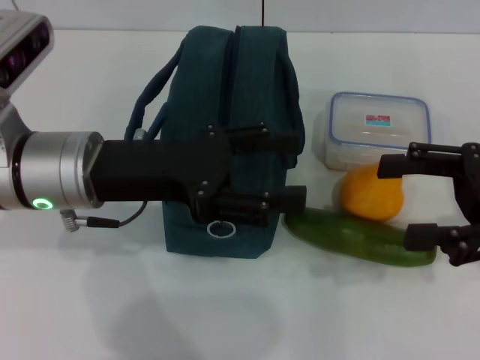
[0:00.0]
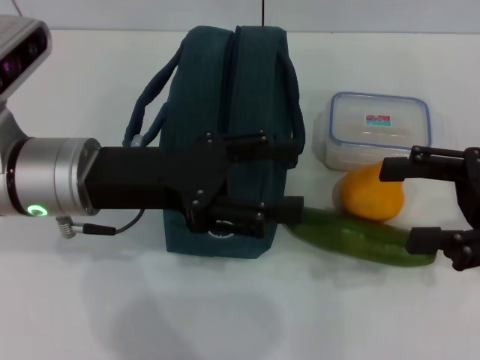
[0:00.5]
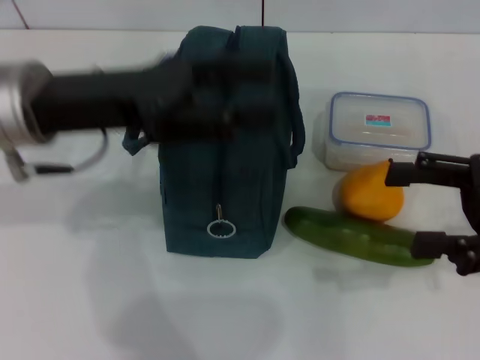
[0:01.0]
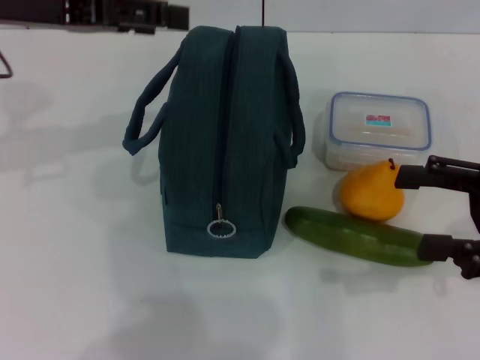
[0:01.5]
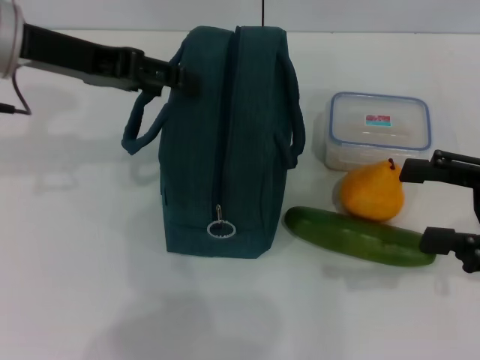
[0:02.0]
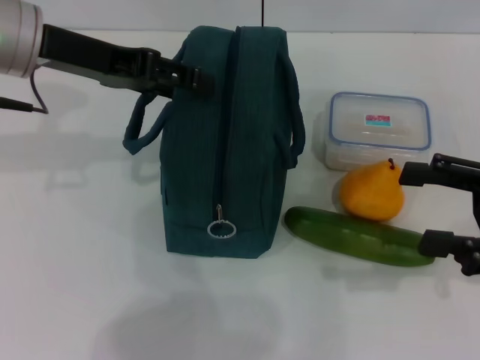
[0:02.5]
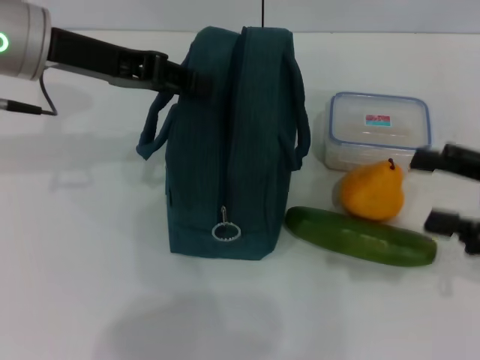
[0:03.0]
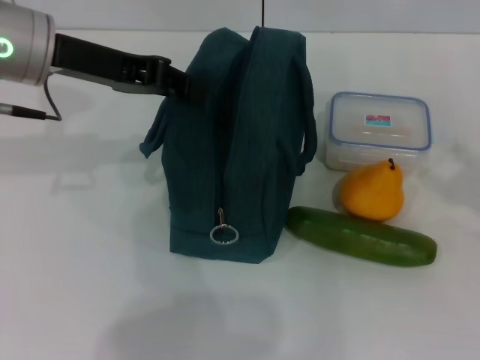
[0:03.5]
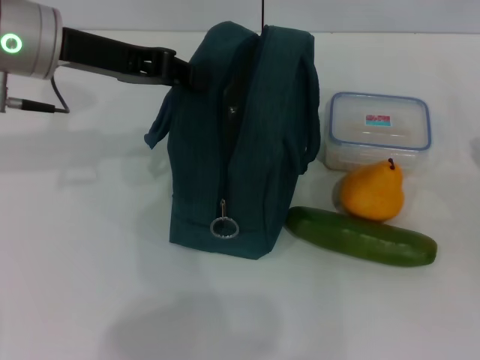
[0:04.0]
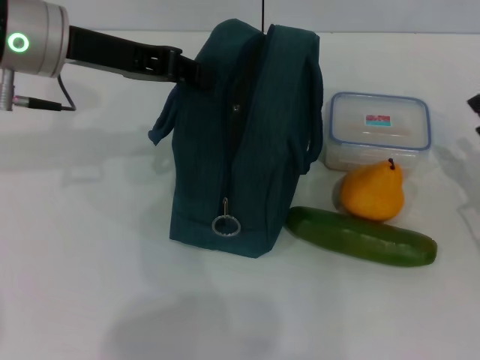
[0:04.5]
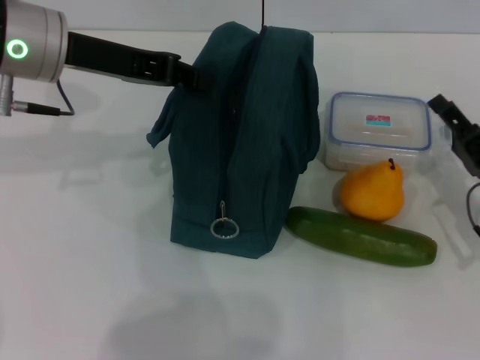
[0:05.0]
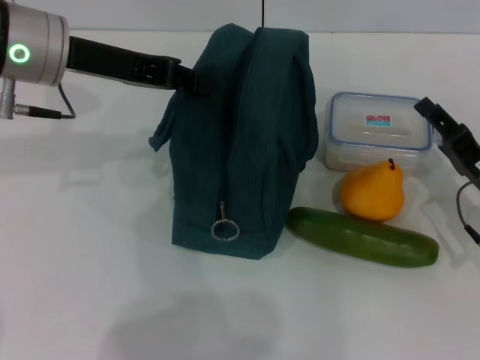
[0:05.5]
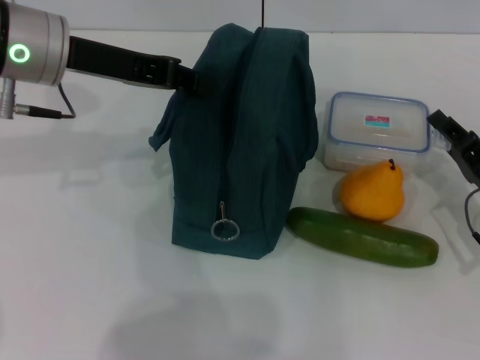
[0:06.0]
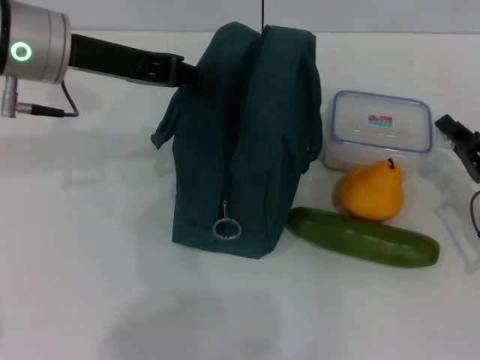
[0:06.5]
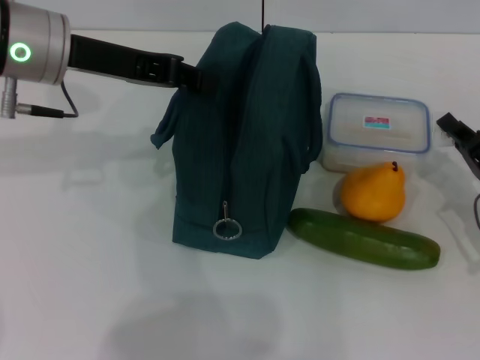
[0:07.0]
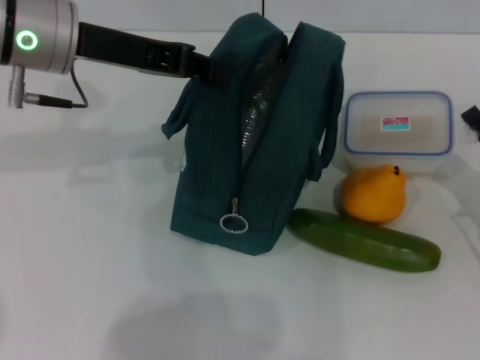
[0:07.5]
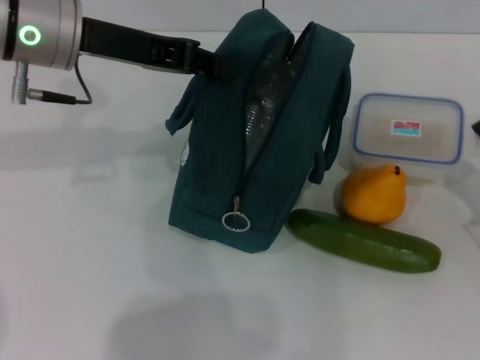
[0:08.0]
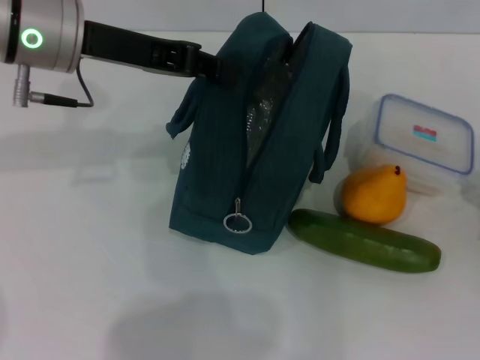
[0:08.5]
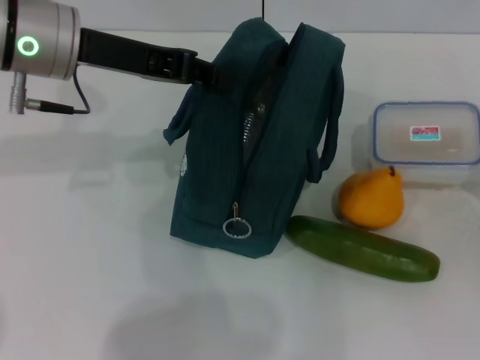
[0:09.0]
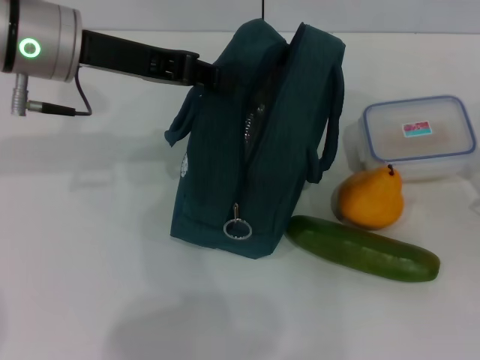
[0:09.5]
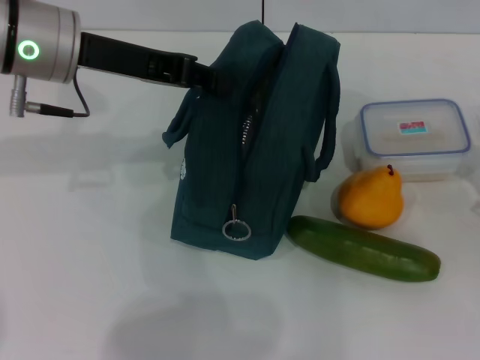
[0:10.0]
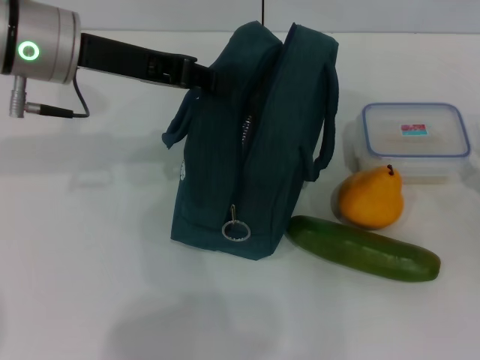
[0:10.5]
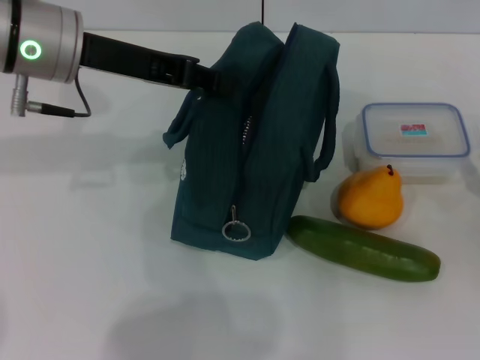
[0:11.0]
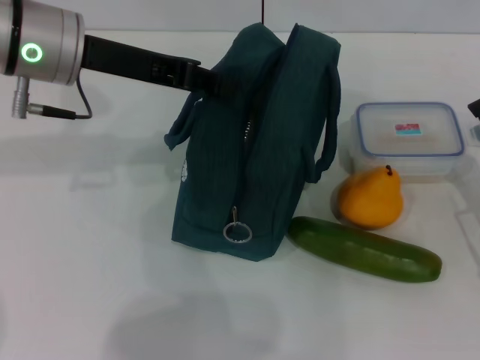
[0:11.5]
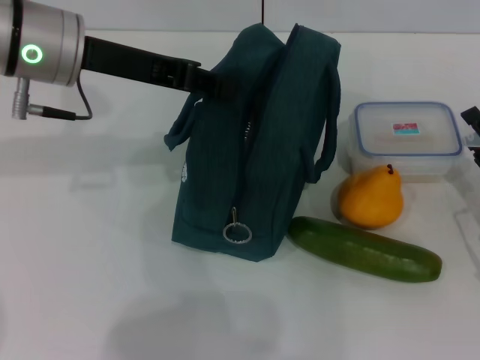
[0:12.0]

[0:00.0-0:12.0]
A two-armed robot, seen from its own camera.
Step, 0:00.0 to 0:03.0: Hold the lunch bag with your left hand.
0:00.0 to 0:02.0: The left gripper heads upward, forward and to the left, covering some 10 cm.
0:02.0 to 0:04.0: The left gripper closes up; the right gripper moves downward, approximately 10 cm.
0:04.0 to 0:06.0: The right gripper is displaced to the left by approximately 5 cm, and closes up.
0:06.0 to 0:08.0: The right gripper closes.
0:08.0 to 0:10.0: The grippers stay close to where they were, moving slightly.
0:10.0 to 0:12.0: The right gripper opens up.

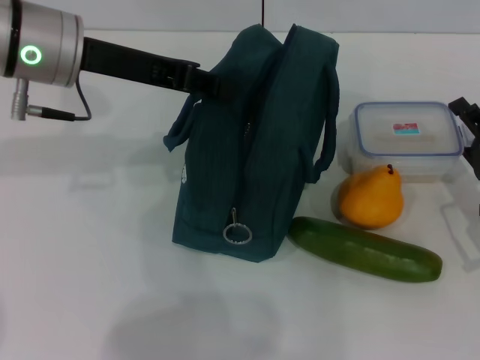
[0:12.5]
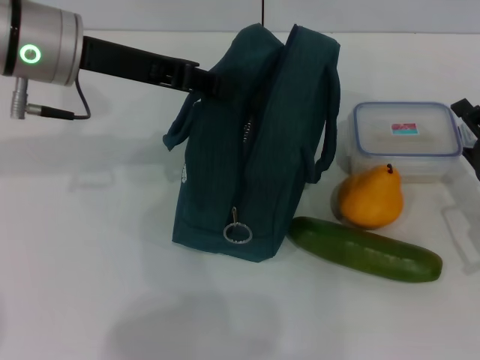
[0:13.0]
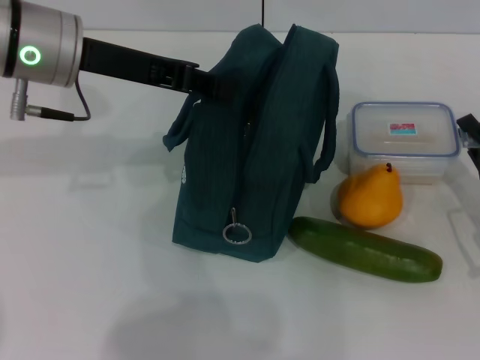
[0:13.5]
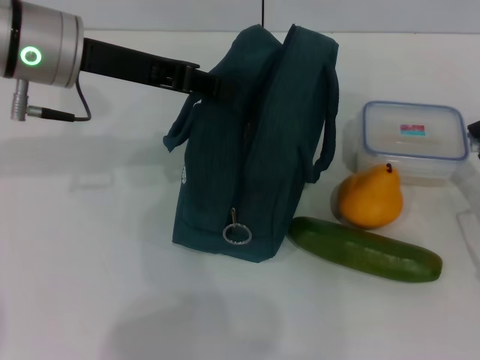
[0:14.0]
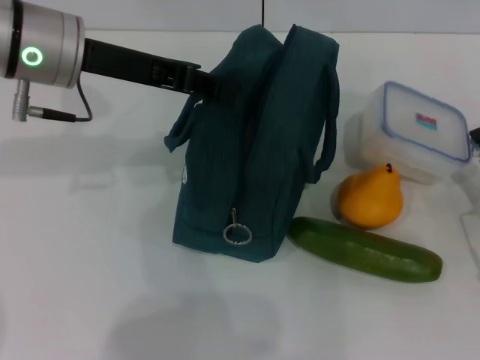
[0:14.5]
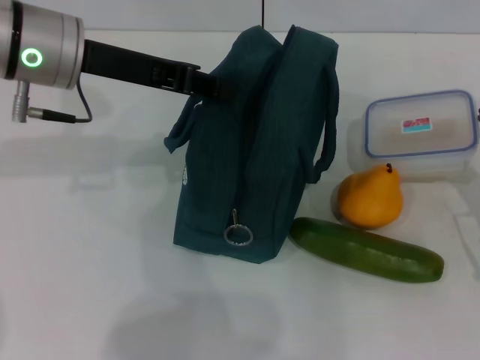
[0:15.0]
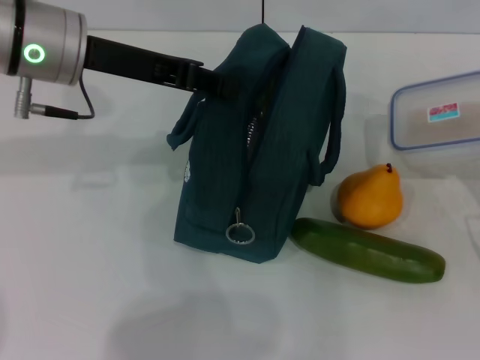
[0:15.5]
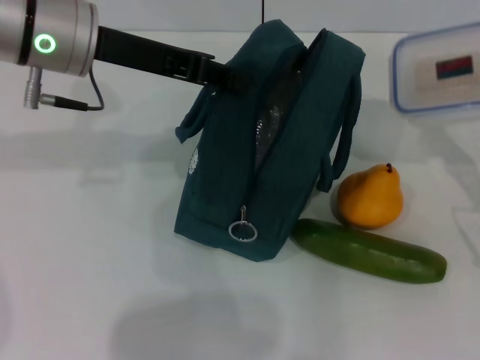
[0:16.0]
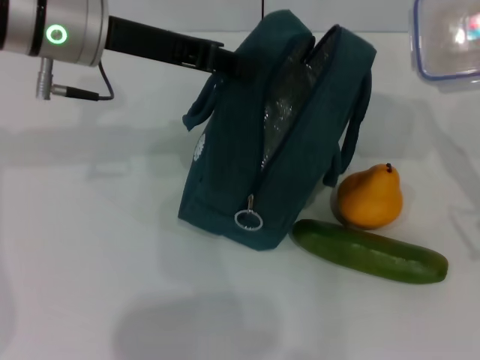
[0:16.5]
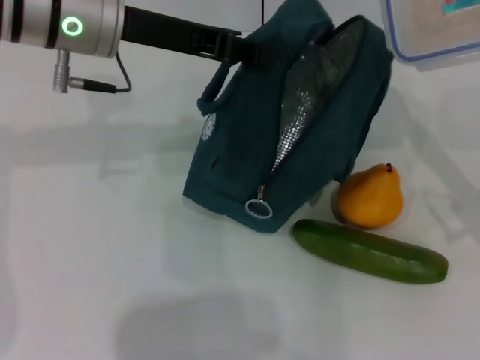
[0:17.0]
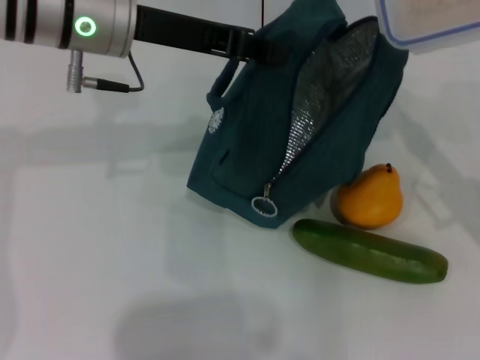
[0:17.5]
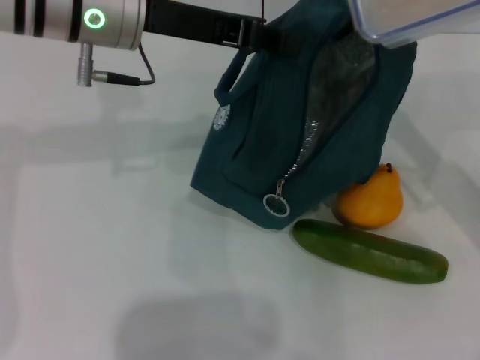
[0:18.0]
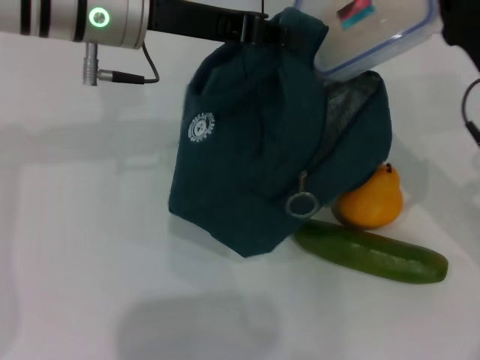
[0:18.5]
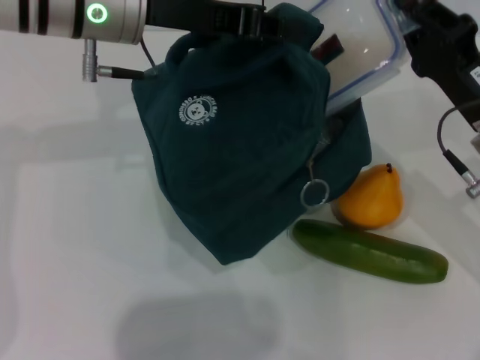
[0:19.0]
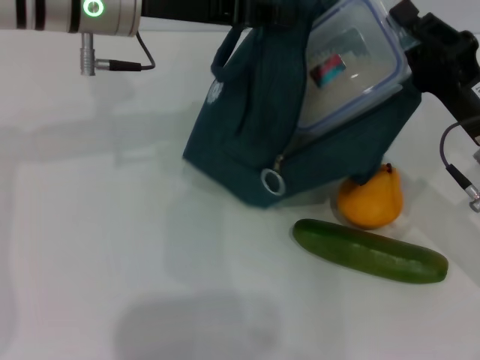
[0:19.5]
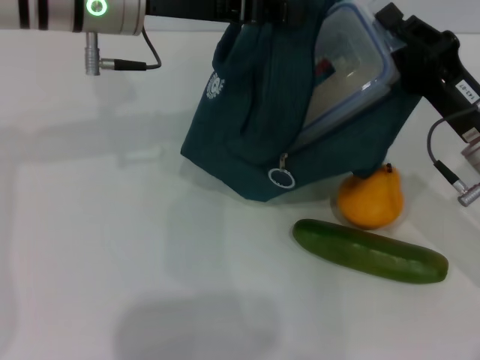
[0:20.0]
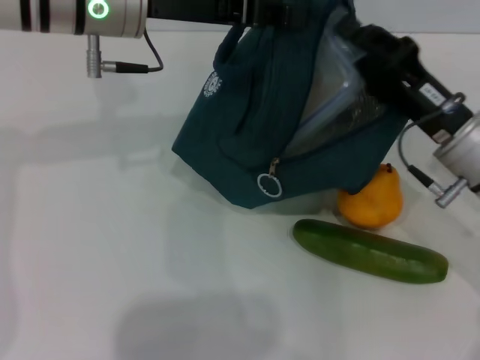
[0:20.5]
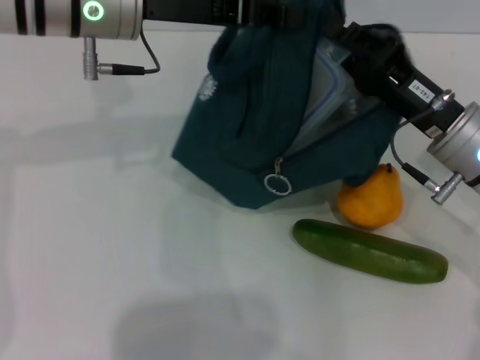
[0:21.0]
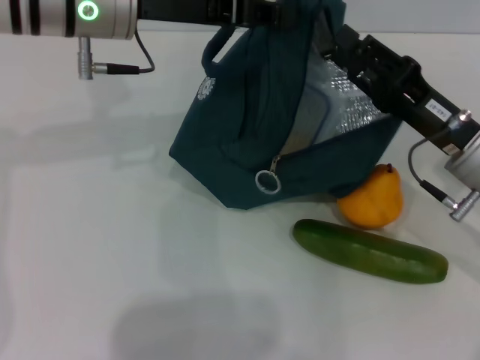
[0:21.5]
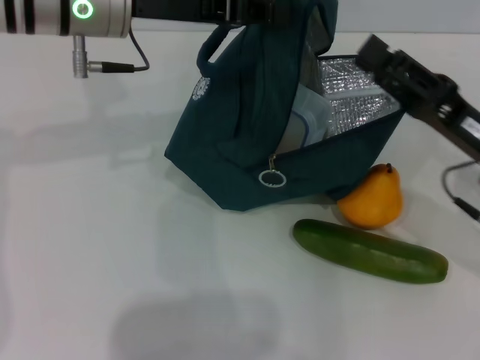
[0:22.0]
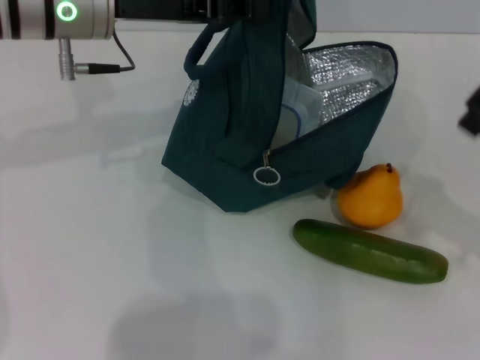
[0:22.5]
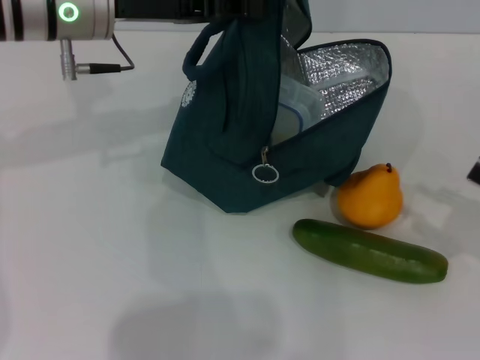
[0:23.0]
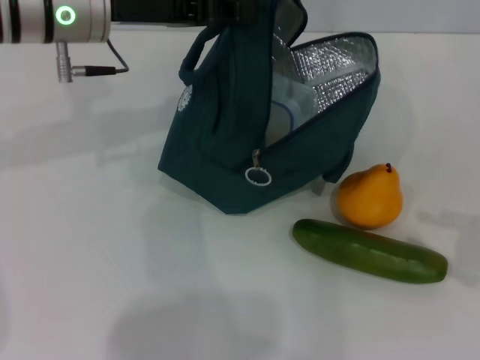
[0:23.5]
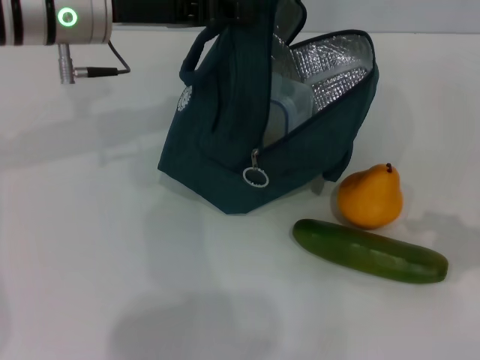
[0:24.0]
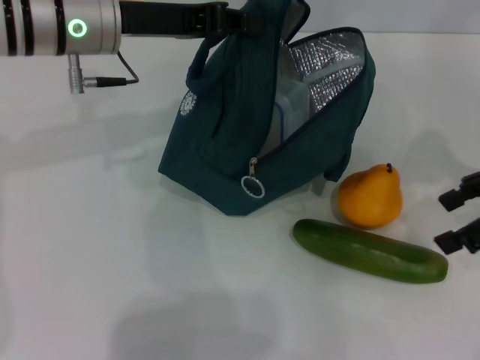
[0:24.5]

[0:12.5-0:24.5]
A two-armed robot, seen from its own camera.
Step, 0:12.5 to 0:14.5: Pick up the lunch box with your right hand.
Step, 0:15.0 to 0:21.5: Place the lunch box into the lunch bag with your right hand.
0:12.5 to 0:14.5: The right gripper closes its fingers.
0:14.5 to 0:16.5: The right gripper heads upward, covering approximately 10 cm.
0:16.5 to 0:18.5: The right gripper goes roughly 10 cm to the left and forward.
0:20.5 to 0:22.5: The right gripper is displaced to the right and backward by some 15 cm, and opens up.
0:22.5 to 0:24.5: The right gripper shifts roughly 15 cm upward and forward, and opens up.

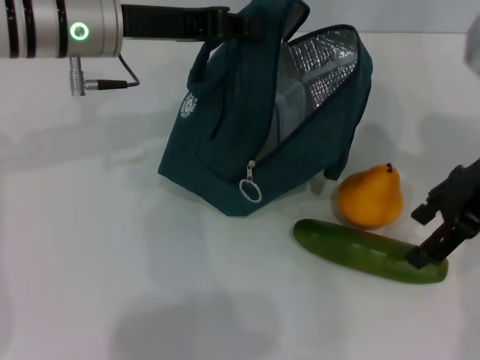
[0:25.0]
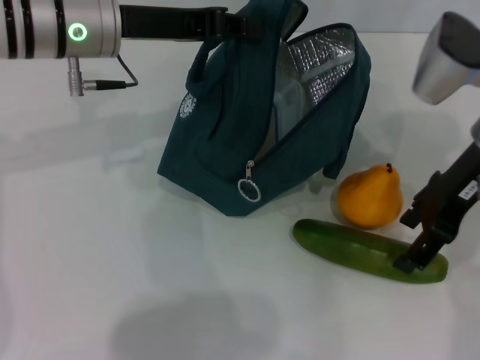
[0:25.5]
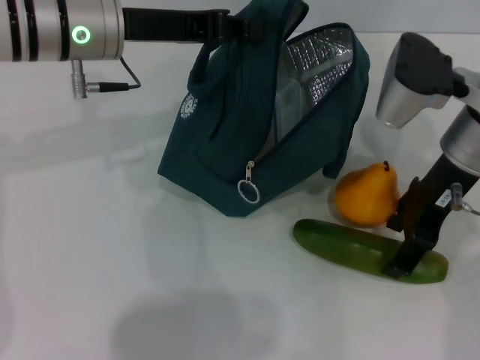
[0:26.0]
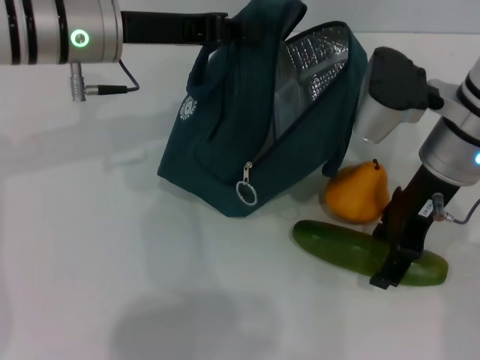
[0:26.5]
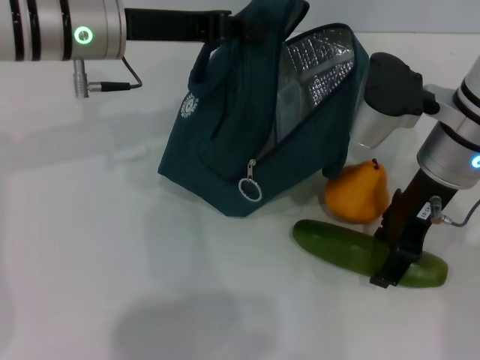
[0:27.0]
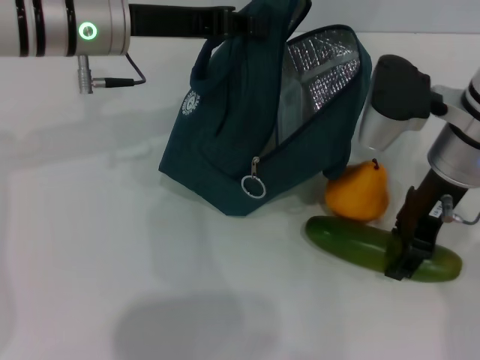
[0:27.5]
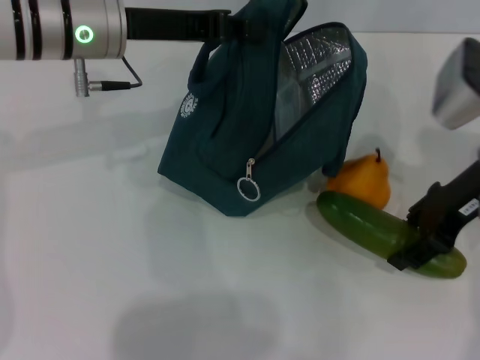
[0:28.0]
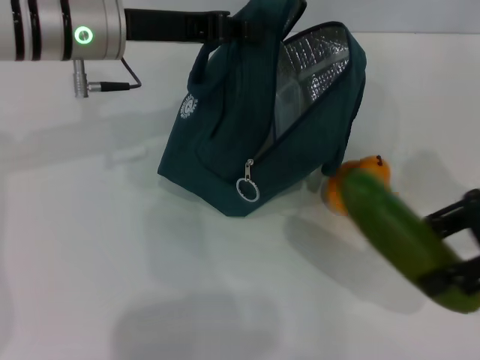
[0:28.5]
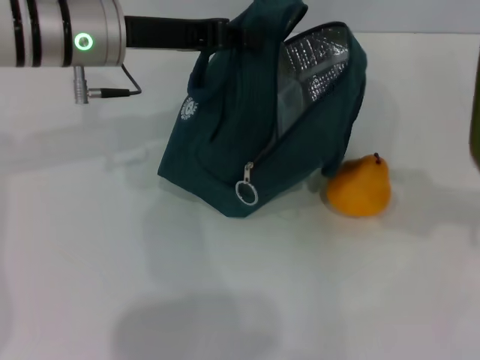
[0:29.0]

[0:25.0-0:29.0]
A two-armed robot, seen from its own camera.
Step, 0:25.0 to 0:27.0: Pick up the cucumber with your right hand.
0:25.0 to 0:27.0: The right gripper goes approximately 5 cm to the left.
0:27.0 to 0:29.0: The right gripper shifts approximately 20 cm to the right.
